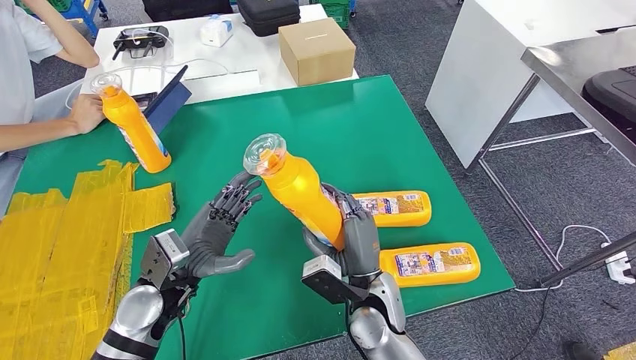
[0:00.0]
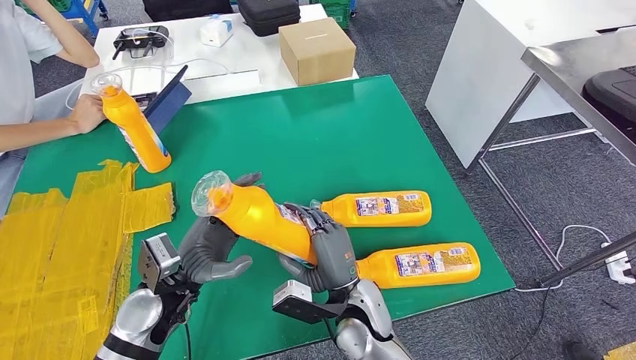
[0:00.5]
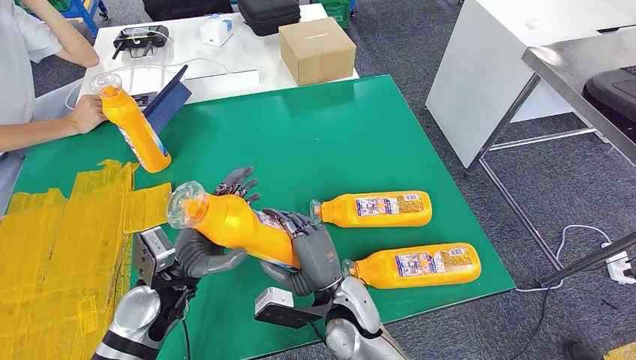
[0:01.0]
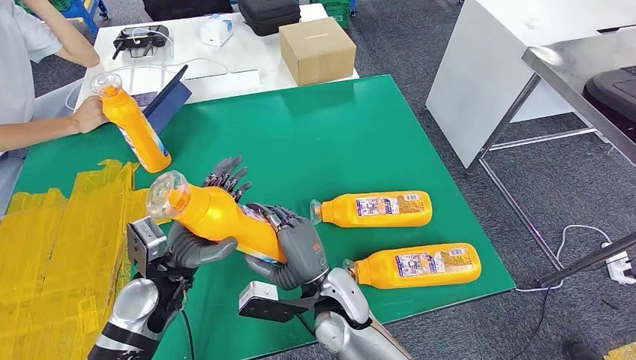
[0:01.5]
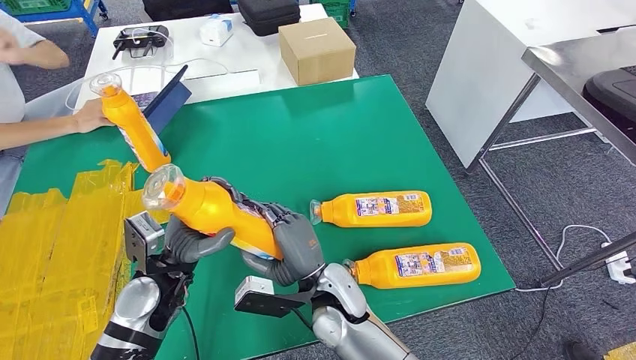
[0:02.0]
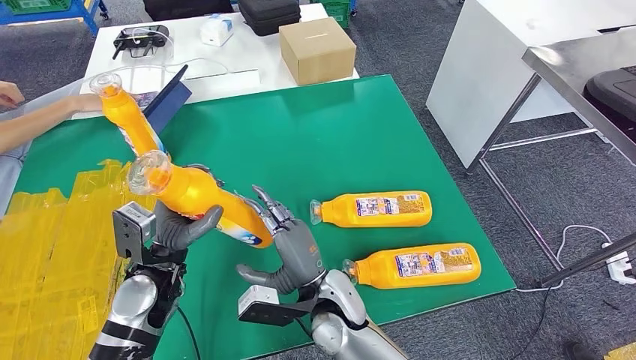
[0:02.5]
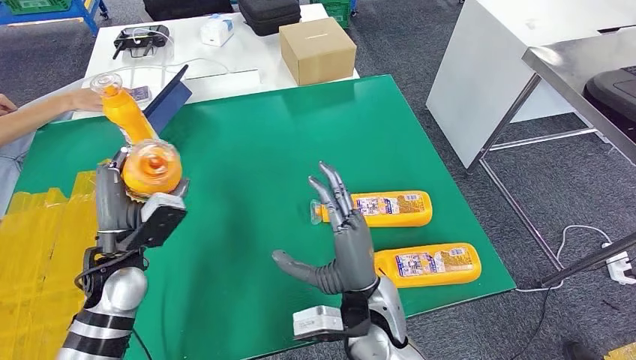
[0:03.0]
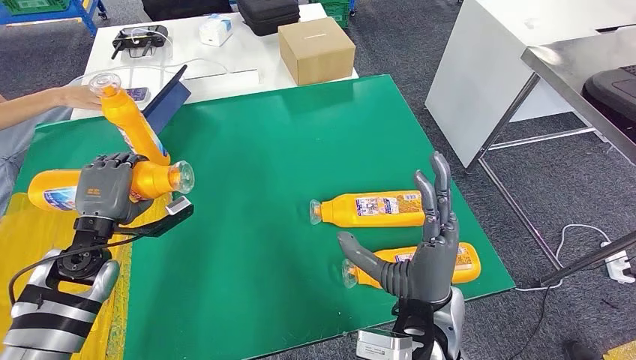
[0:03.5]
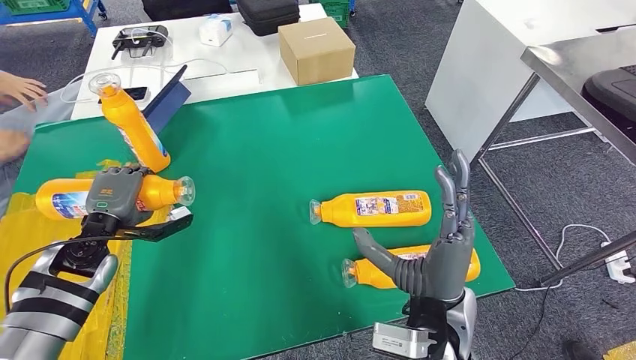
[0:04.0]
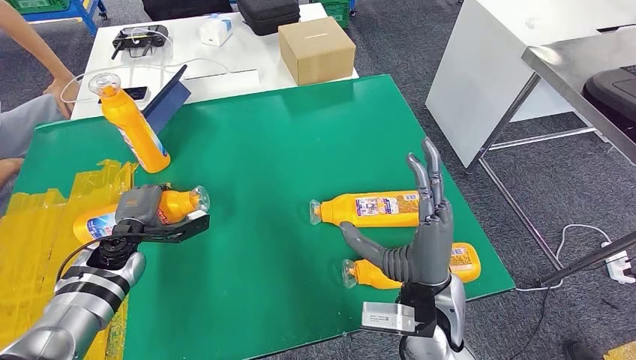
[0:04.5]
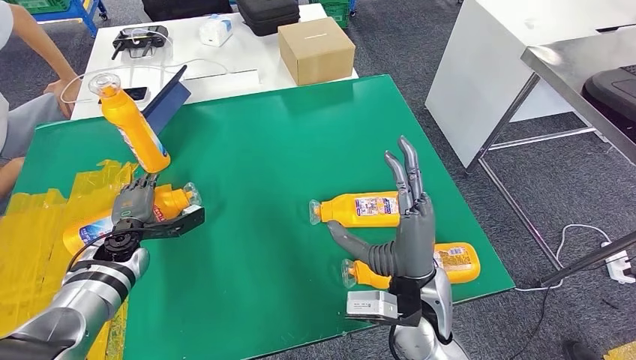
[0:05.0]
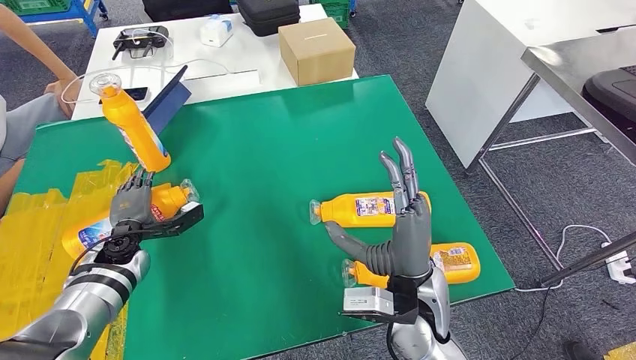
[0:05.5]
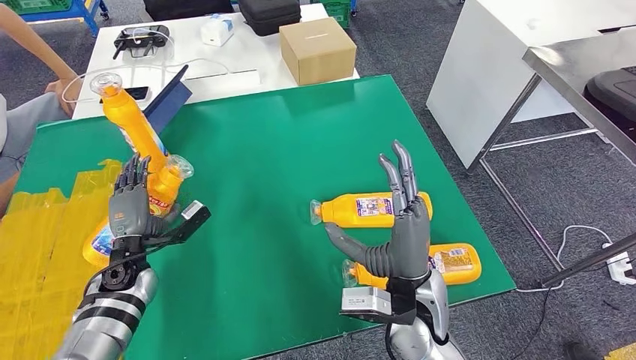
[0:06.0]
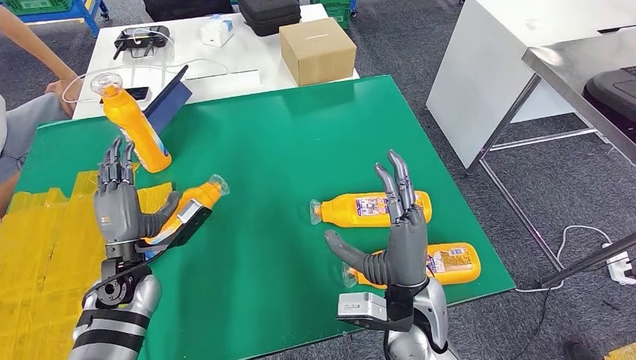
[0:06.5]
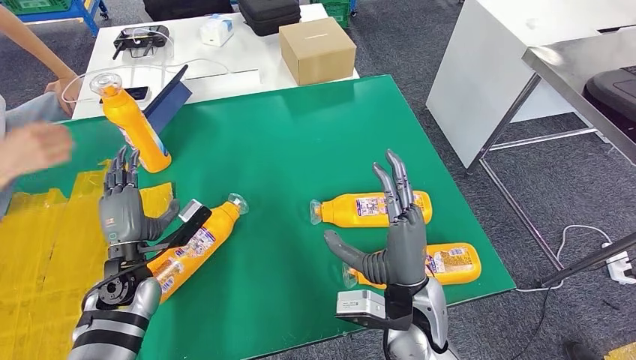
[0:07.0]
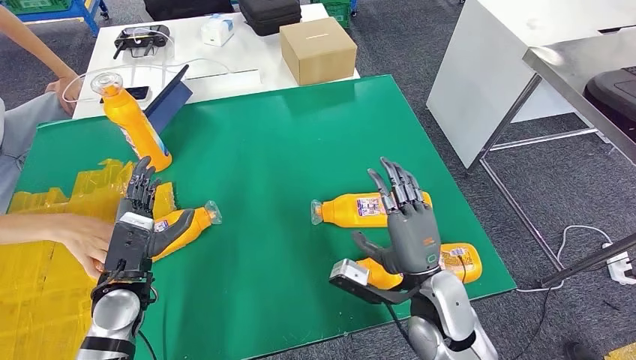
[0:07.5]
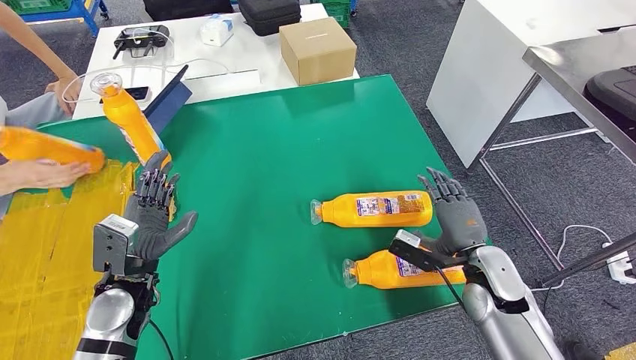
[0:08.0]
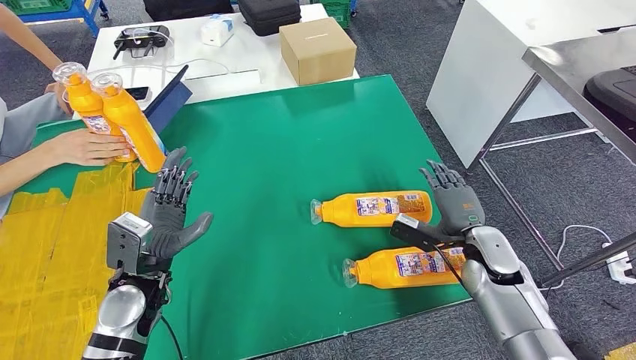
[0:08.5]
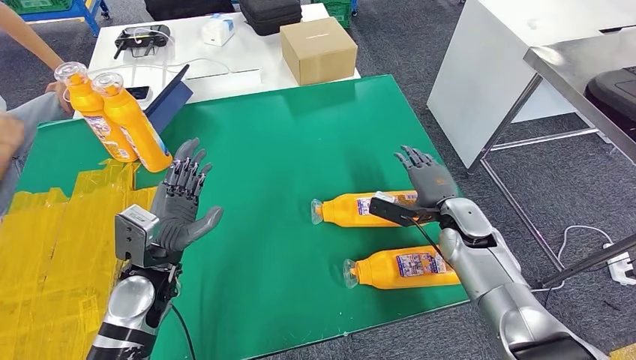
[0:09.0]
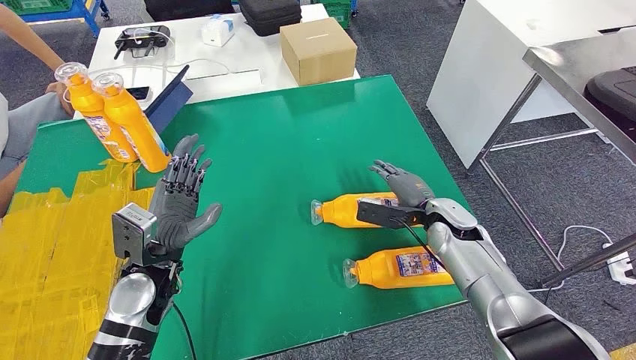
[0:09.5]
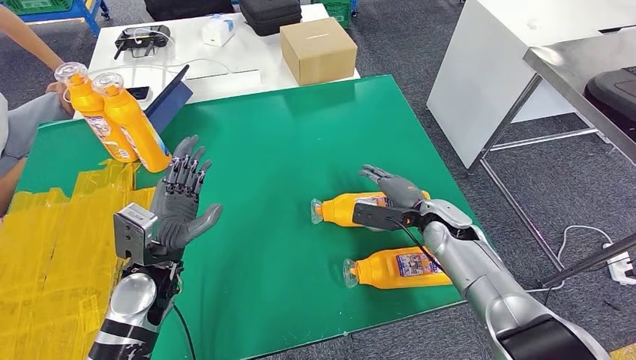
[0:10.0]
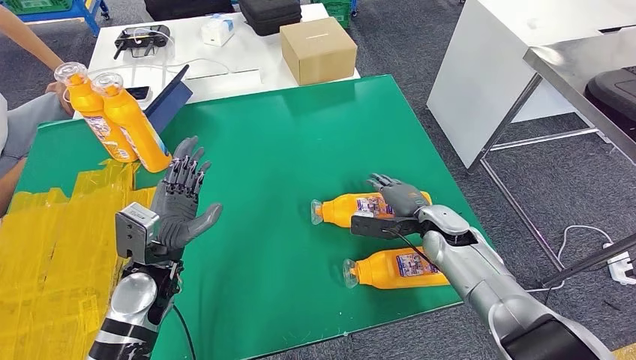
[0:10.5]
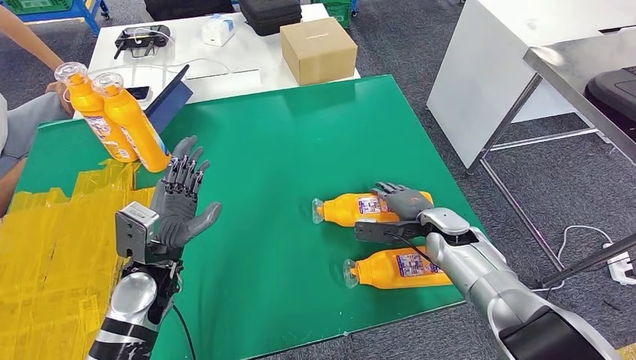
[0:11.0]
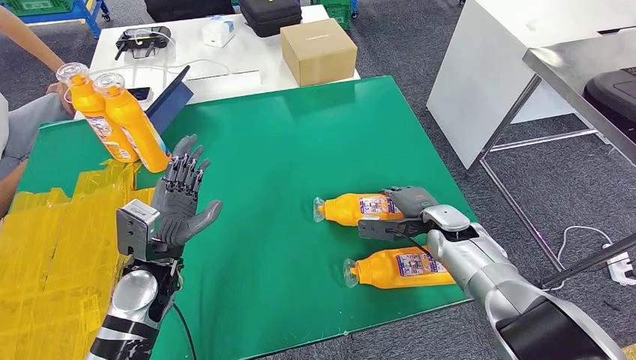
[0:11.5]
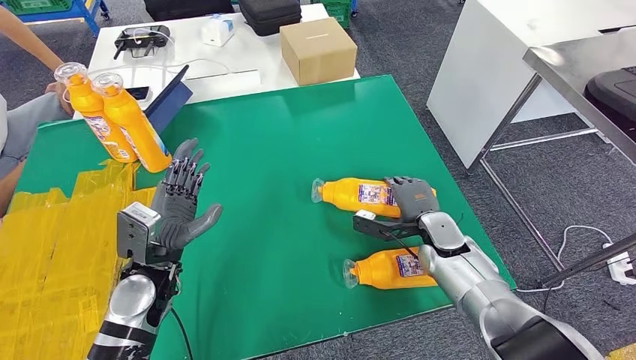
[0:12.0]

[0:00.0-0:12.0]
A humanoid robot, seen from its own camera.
Step, 0:00.0 to 0:05.0: Flip the fast-moving consumer goods bottle to the front side.
0:00.0 to 0:02.0: The right hand heads to the left, covering some 5 cm.
0:06.0 to 0:08.0: The left hand shifts about 10 cm backward and upward, while the right hand heads to the right and downward, covering approximately 15 cm.
0:08.0 to 0:10.0: The right hand shifts approximately 10 cm forward.

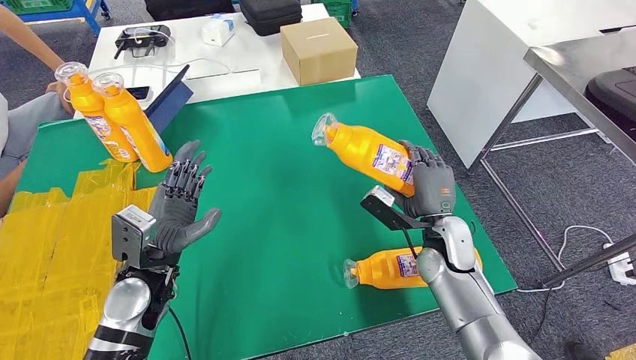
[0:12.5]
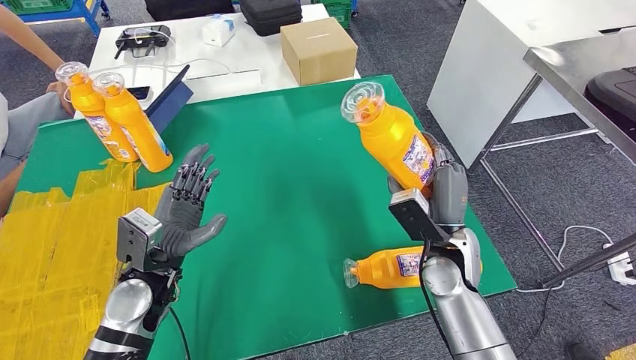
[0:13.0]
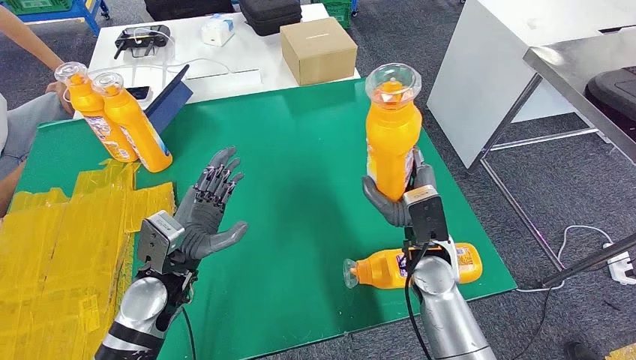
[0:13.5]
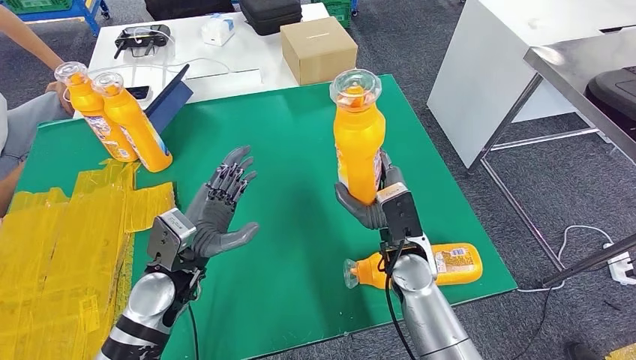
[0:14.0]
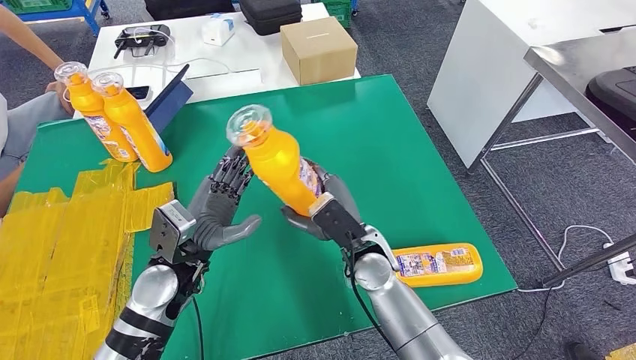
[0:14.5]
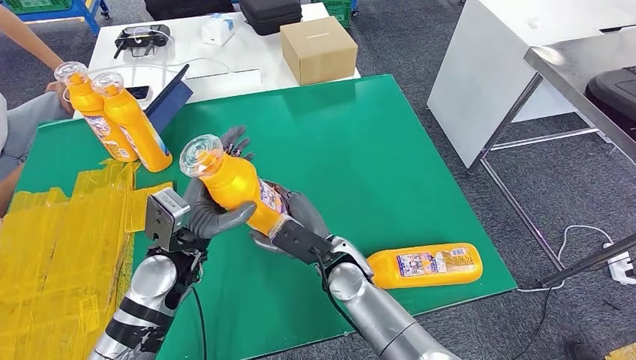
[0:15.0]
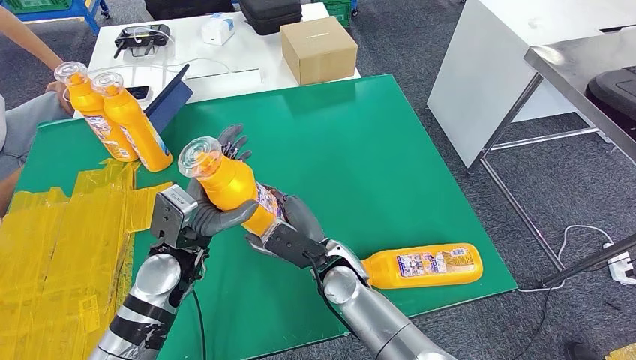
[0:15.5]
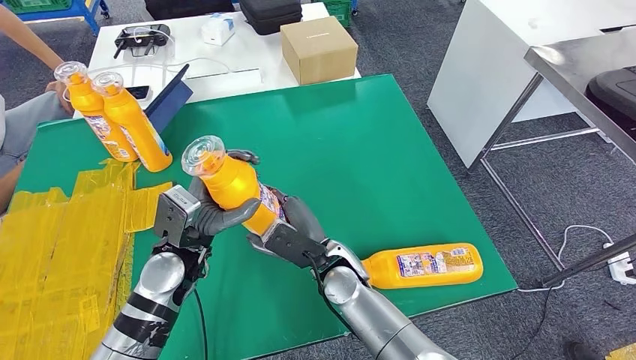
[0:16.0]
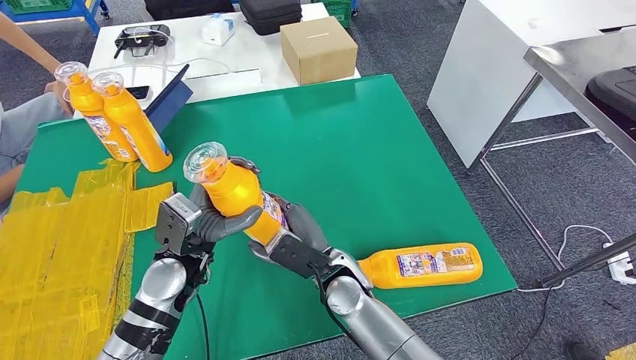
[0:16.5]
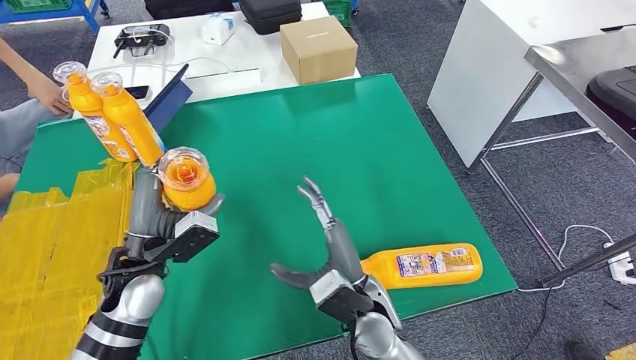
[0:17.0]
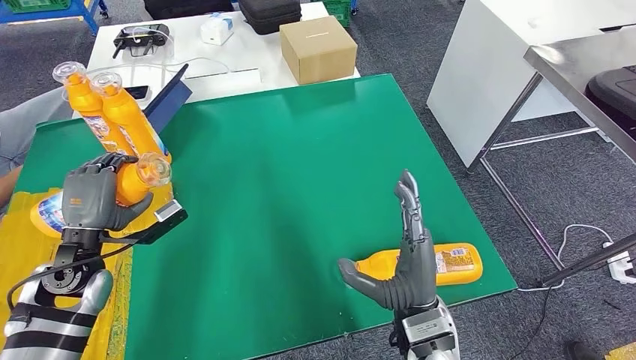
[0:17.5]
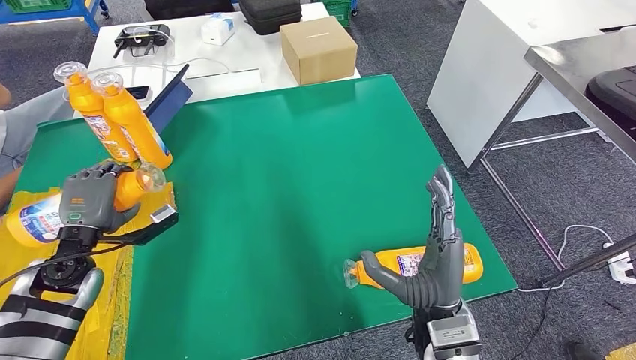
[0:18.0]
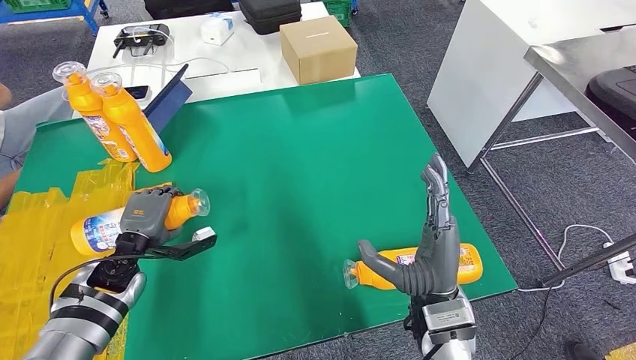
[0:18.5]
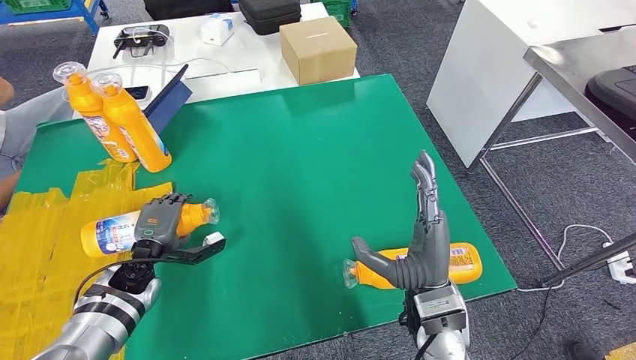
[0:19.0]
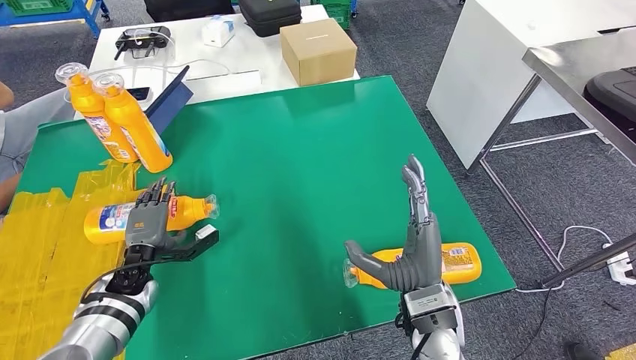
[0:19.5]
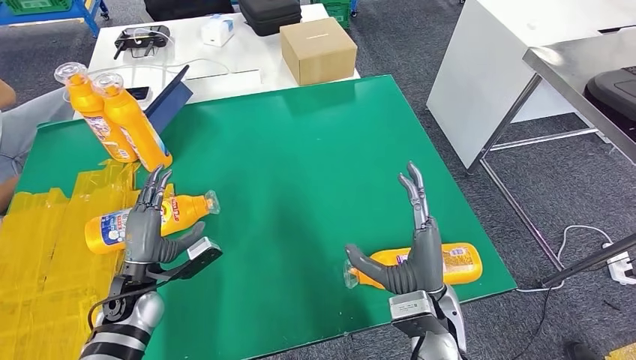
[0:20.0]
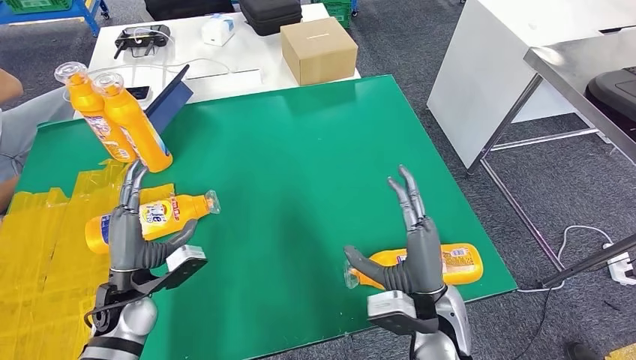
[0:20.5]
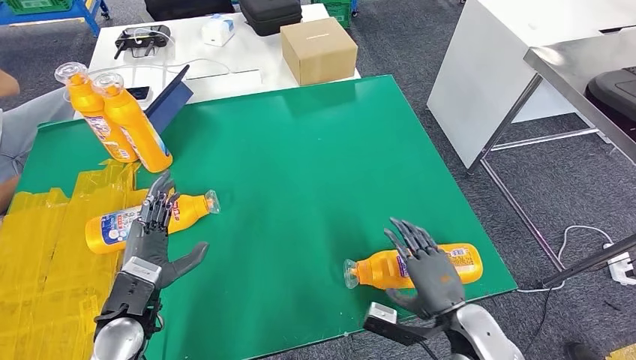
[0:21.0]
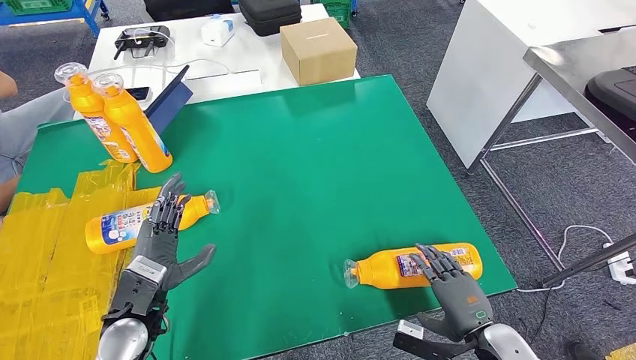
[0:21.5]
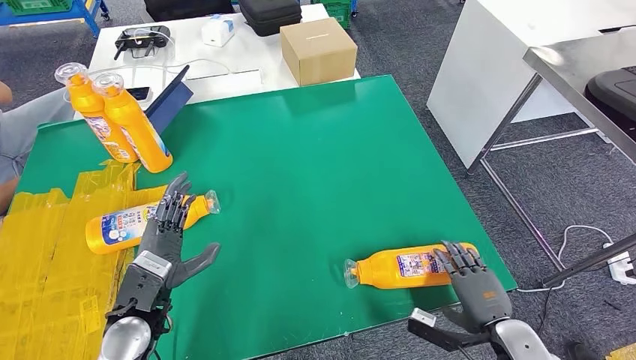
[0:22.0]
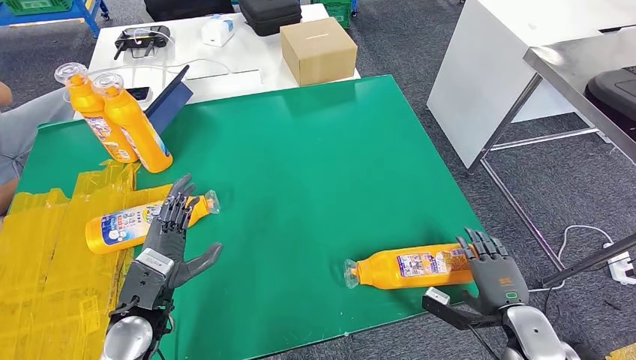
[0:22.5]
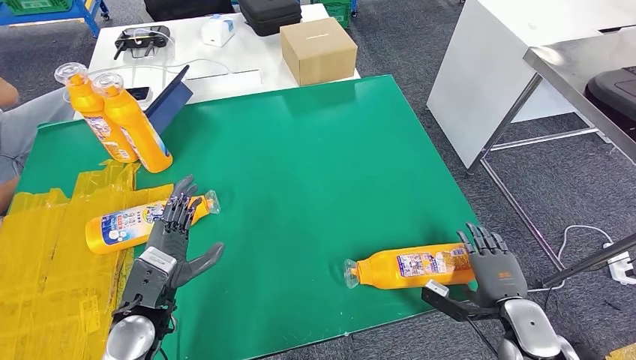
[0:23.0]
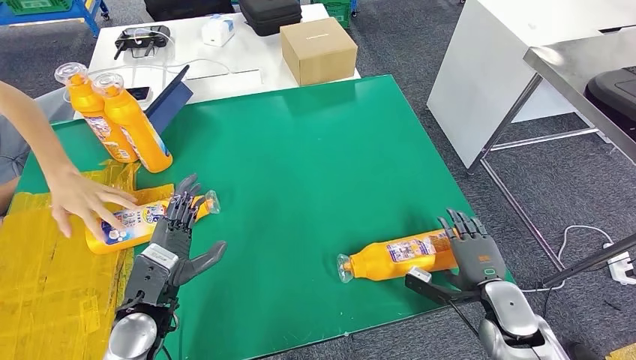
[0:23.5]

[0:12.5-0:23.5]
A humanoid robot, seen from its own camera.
Step, 0:12.5 to 0:14.0: Pick up the fast-moving consumer goods bottle from the table.
Step, 0:15.0 to 0:18.5: Flip the fast-moving consumer goods bottle to the front side.
0:14.5 to 0:16.0: The right hand is displaced to the left by about 5 cm.
0:18.0 to 0:20.0: The left hand heads downward and to the right, covering roughly 10 cm.
0:20.0 to 0:21.5: The right hand goes some 15 cm to the right and downward. The left hand goes approximately 10 cm backward and to the right.
0:21.5 to 0:23.5: The right hand goes roughly 10 cm forward.
